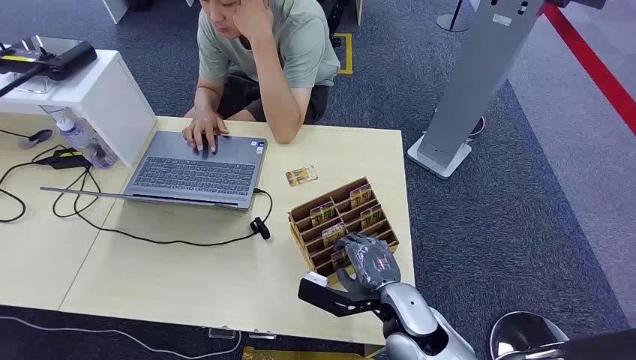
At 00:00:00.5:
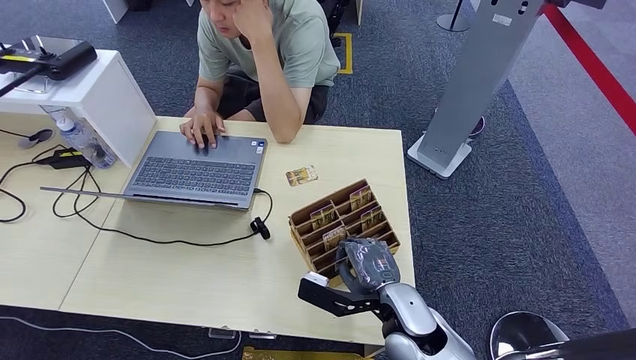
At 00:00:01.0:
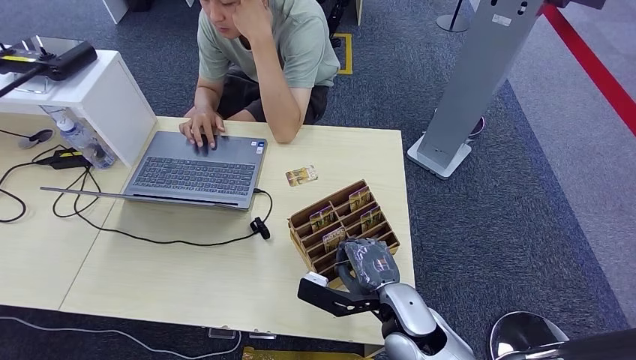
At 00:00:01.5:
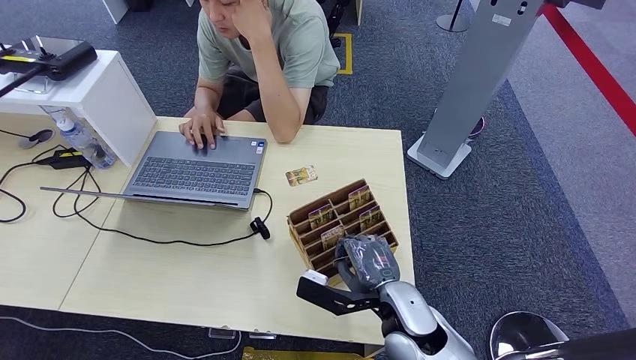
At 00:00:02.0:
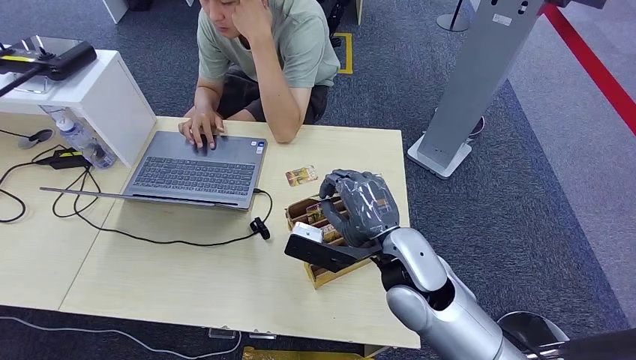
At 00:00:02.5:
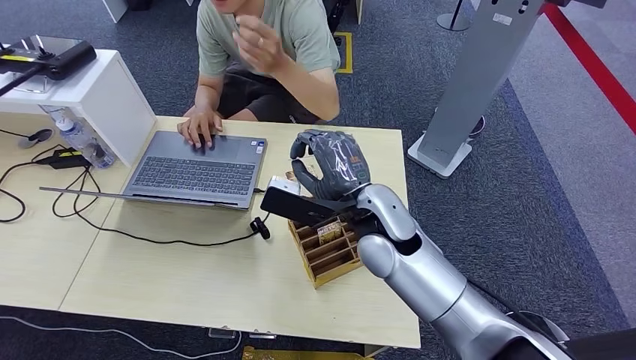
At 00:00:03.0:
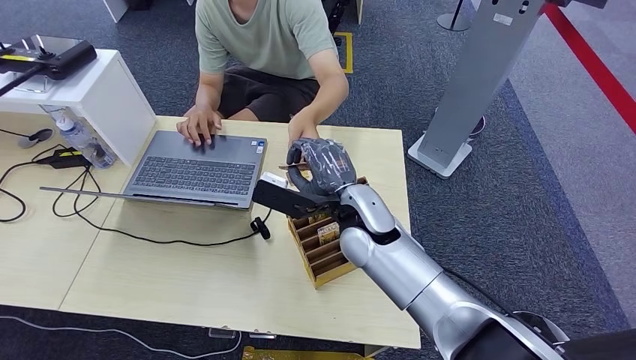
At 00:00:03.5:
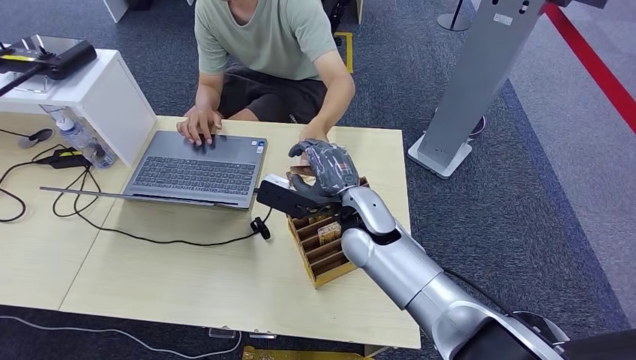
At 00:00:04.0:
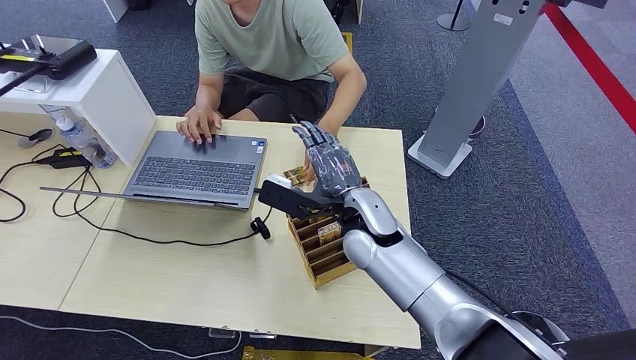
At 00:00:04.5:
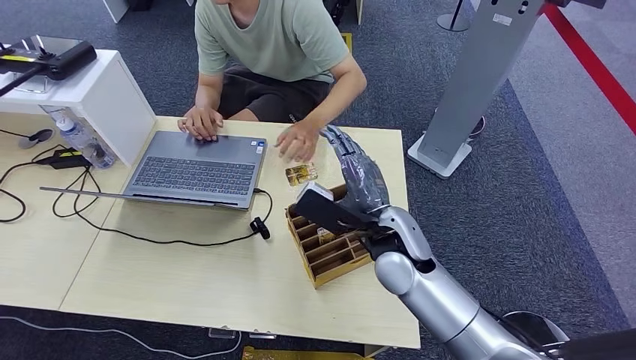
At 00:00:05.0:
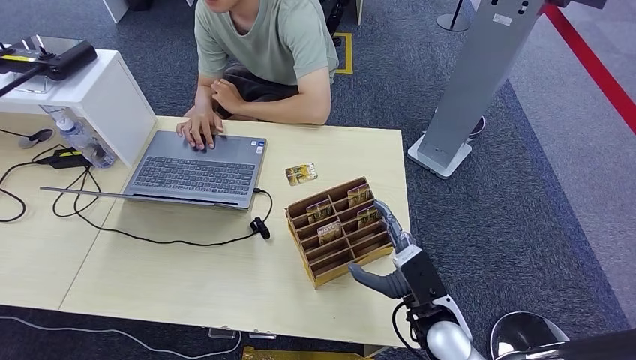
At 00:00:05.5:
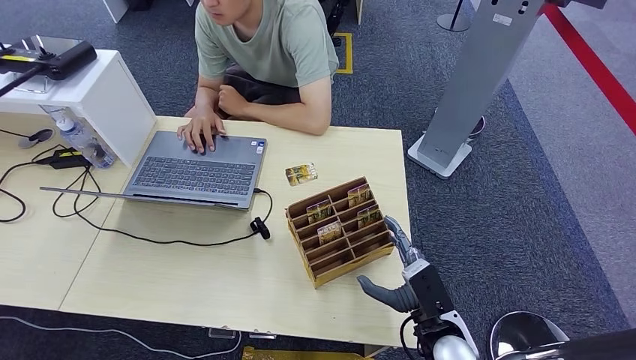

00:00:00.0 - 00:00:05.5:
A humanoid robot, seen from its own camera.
Step, 00:00:00.0 - 00:00:02.0: Pick up the key card from the card box.
Step, 00:00:02.5 - 00:00:05.5: Hand the key card to the target.
00:00:02.0 - 00:00:03.5: The right hand goes roughly 10 cm forward and to the left.
00:00:03.5 - 00:00:05.5: The right hand is displaced to the right, downward and backward by some 25 cm.
